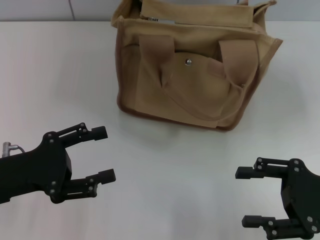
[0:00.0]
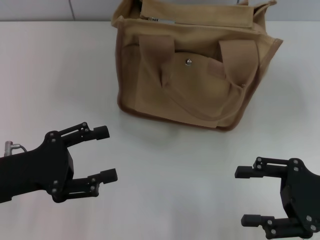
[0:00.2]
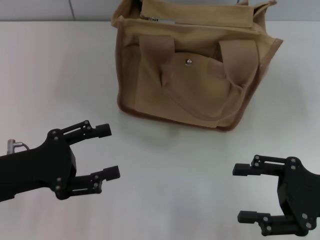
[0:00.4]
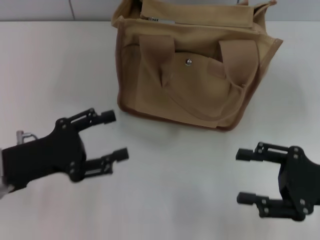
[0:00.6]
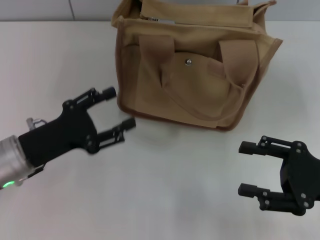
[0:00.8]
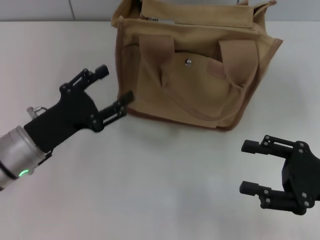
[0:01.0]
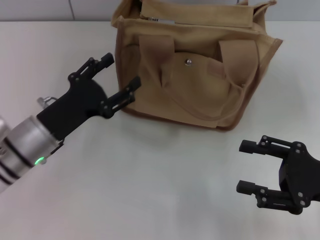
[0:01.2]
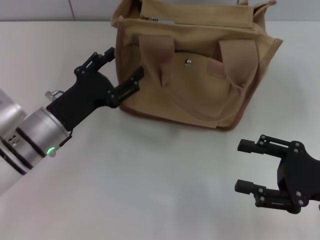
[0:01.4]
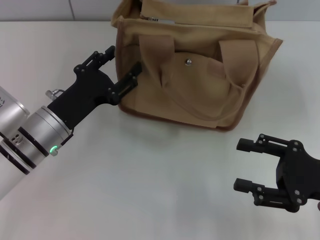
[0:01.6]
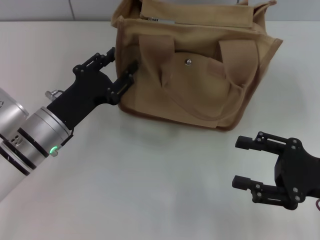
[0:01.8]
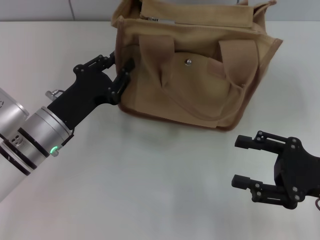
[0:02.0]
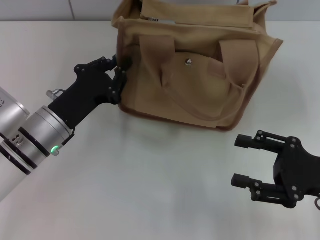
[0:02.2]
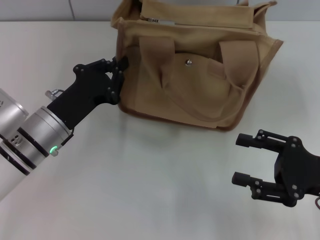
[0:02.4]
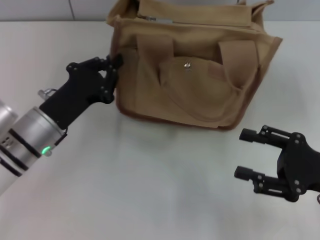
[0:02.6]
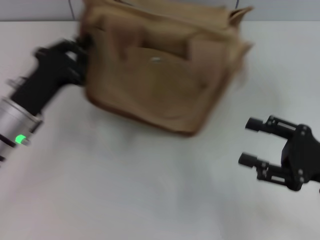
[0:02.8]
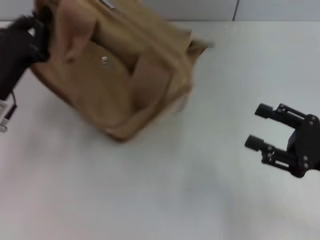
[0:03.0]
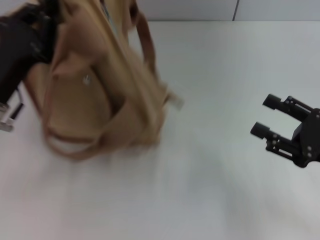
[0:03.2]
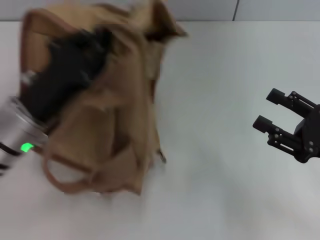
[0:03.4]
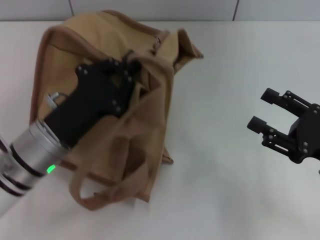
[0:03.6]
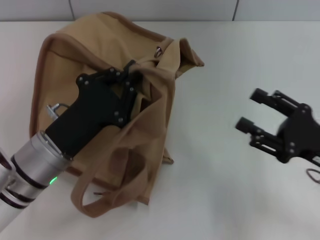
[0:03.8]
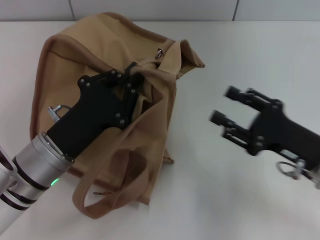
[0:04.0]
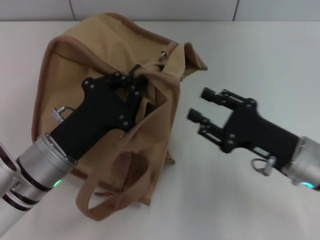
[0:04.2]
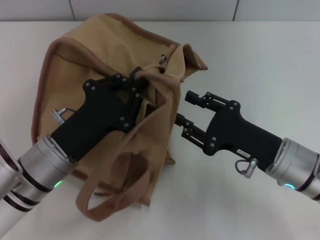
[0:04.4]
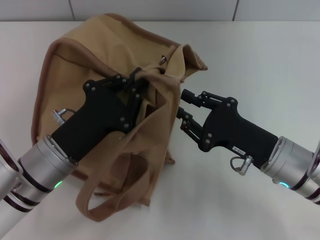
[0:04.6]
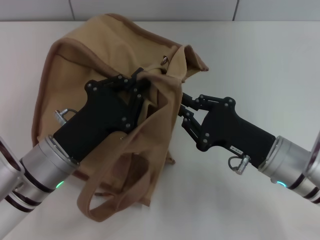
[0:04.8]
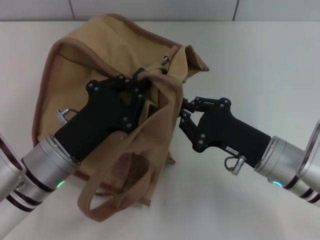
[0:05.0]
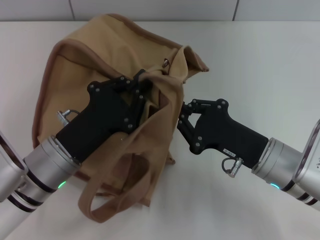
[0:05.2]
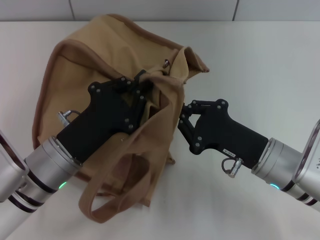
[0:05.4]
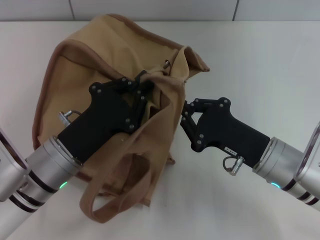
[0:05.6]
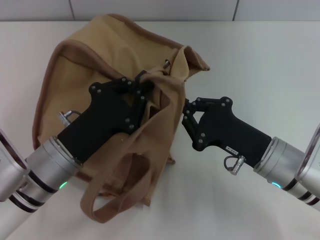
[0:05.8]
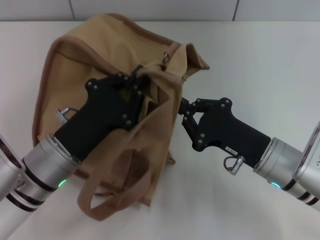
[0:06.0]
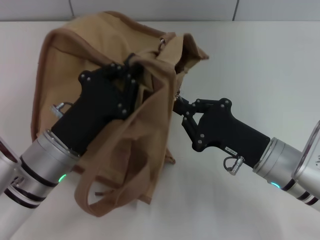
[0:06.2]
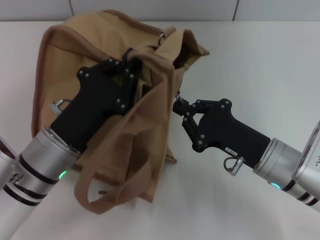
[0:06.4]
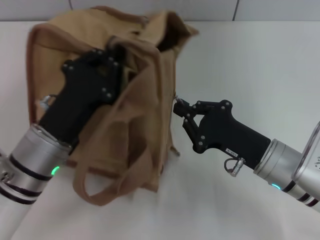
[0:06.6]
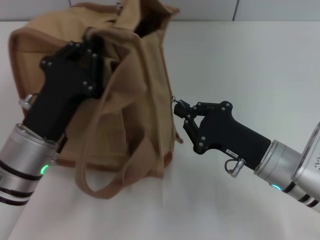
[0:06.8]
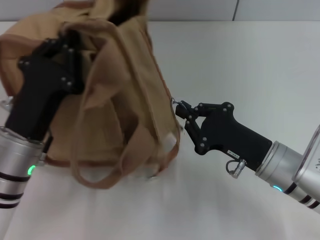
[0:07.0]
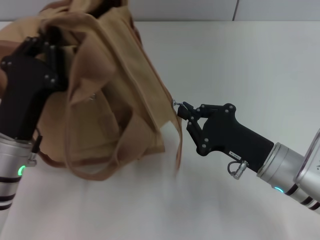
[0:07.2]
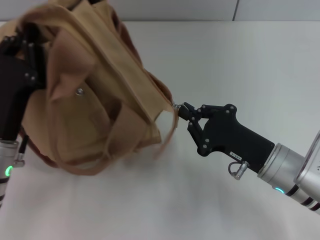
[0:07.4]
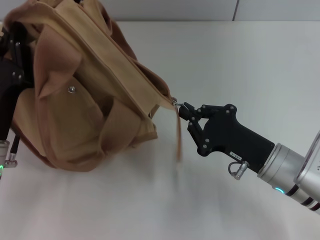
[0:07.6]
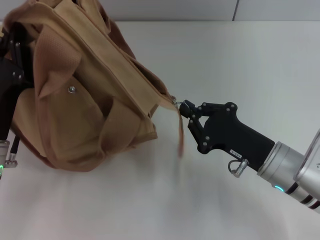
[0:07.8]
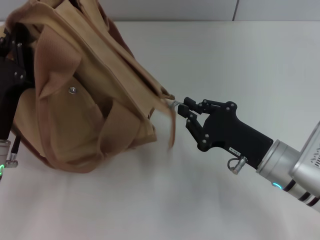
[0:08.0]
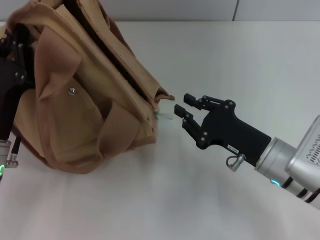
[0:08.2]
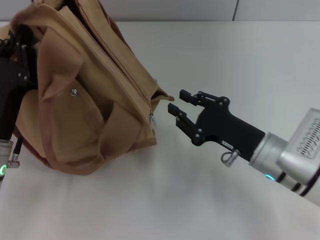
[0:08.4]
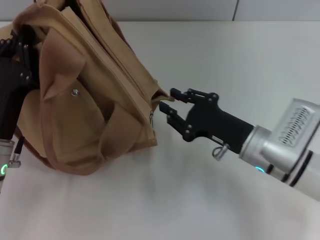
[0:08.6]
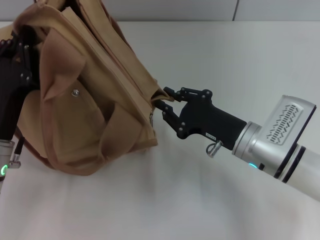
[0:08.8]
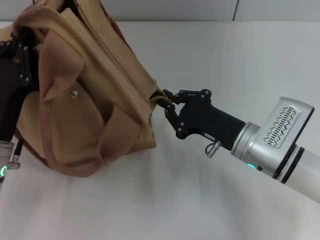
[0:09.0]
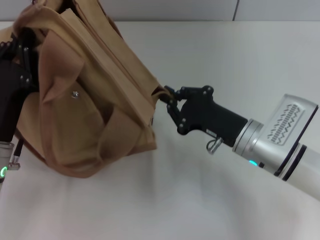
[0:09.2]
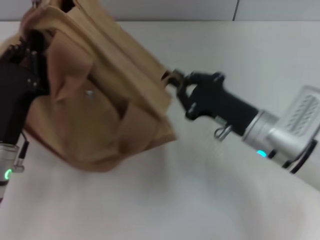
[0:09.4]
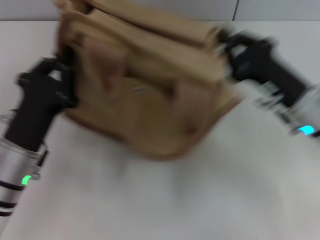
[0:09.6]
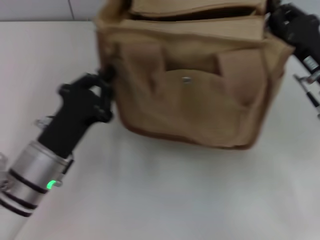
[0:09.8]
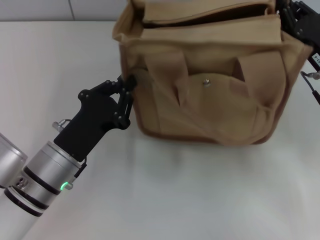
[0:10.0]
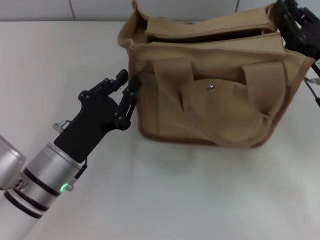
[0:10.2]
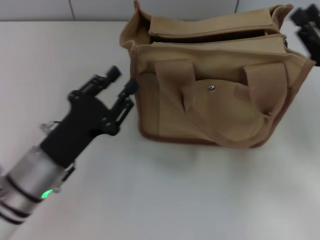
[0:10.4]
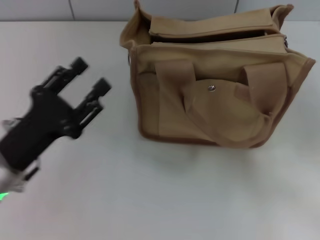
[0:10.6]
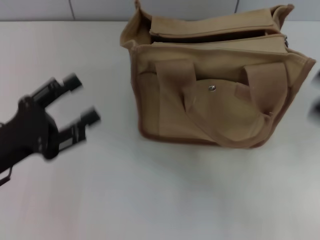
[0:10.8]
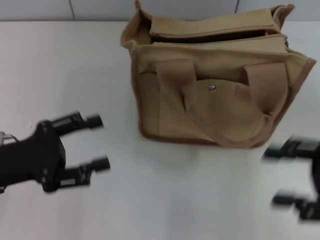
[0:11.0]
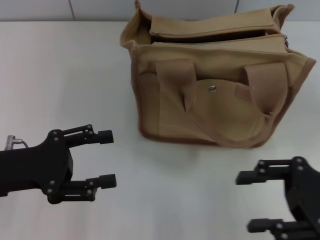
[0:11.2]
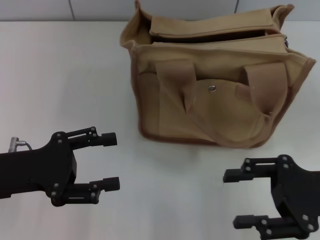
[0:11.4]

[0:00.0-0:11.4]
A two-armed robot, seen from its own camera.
Step, 0:00.0 to 0:08.0: Pull open the zipper with your right hand.
Step, 0:08.4 to 0:10.2: Grab the bag with your left hand.
0:00.0 to 0:01.4: The left gripper moves to the right and forward, approximately 10 cm.
0:01.4 to 0:02.8: The left gripper closes.
0:02.8 to 0:04.2: The left gripper goes some 5 cm to the right and backward, while the right gripper is displaced to the left by approximately 5 cm.
0:04.2 to 0:05.6: The right gripper closes.
0:07.2 to 0:08.6: The right gripper opens up.
0:08.6 to 0:10.0: The right gripper heads to the right and upward, covering approximately 10 cm. Meanwhile the left gripper heads to the right, covering roughly 5 cm.
0:10.0 to 0:11.4: The right gripper heads backward, covering approximately 10 cm, and opens up; the left gripper shifts some 10 cm to the left and upward, and opens up.

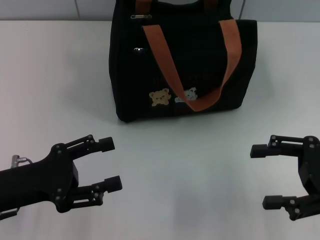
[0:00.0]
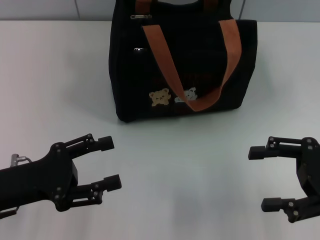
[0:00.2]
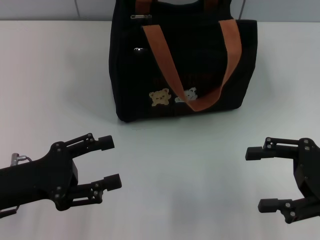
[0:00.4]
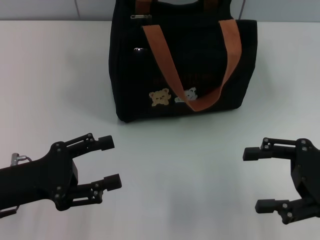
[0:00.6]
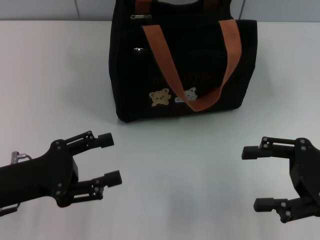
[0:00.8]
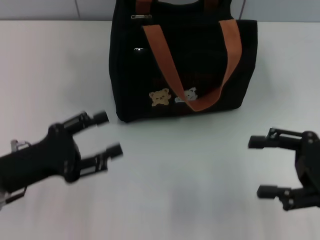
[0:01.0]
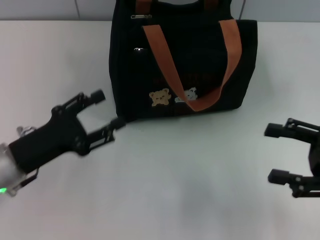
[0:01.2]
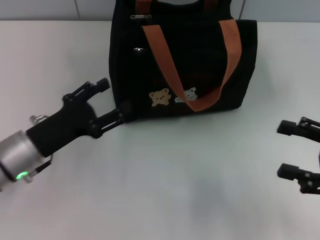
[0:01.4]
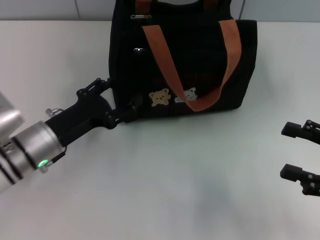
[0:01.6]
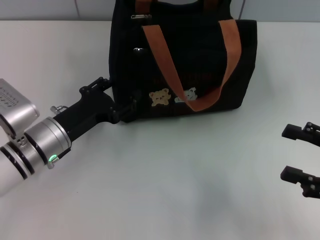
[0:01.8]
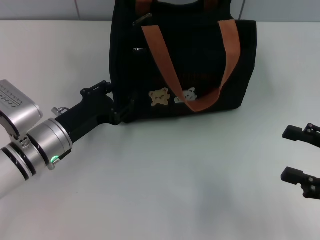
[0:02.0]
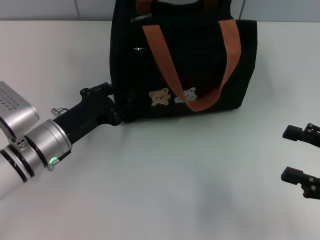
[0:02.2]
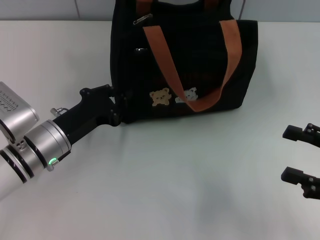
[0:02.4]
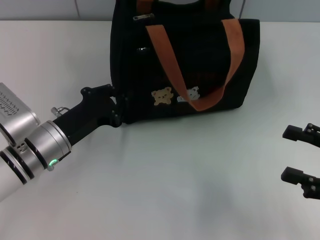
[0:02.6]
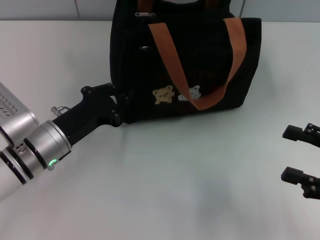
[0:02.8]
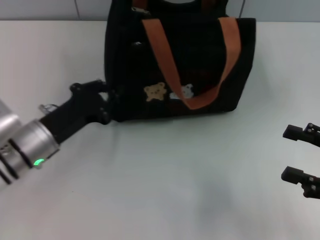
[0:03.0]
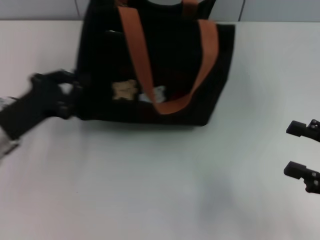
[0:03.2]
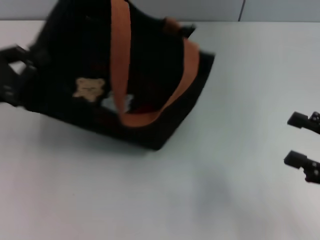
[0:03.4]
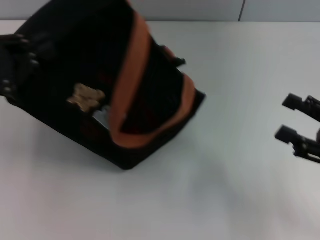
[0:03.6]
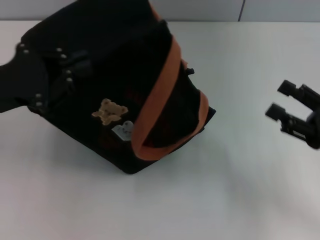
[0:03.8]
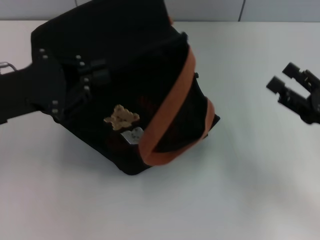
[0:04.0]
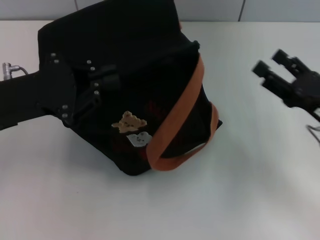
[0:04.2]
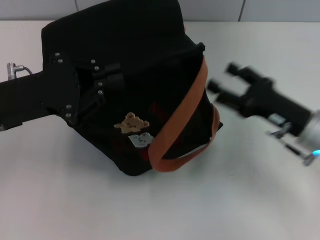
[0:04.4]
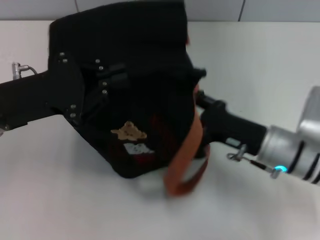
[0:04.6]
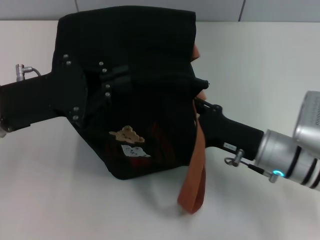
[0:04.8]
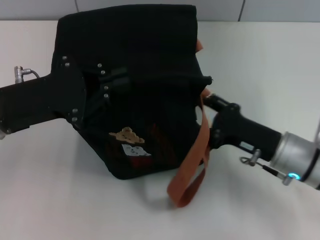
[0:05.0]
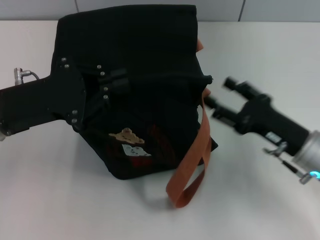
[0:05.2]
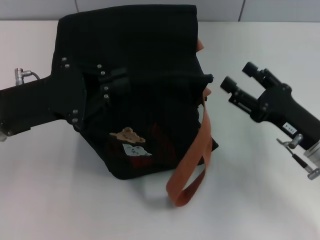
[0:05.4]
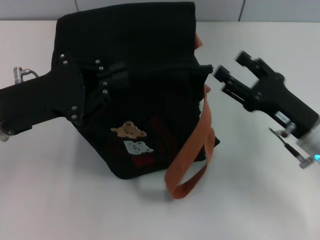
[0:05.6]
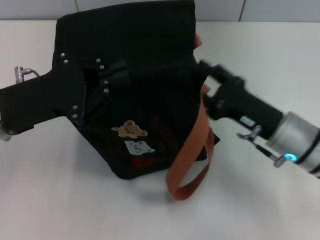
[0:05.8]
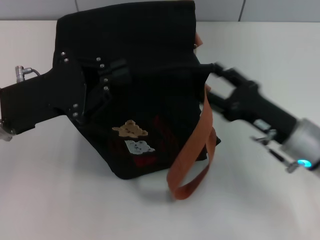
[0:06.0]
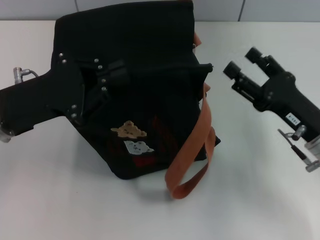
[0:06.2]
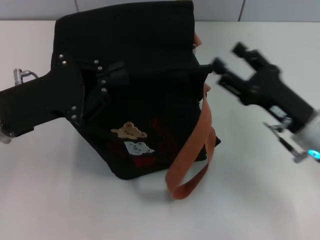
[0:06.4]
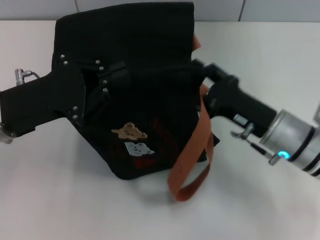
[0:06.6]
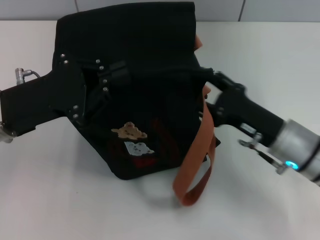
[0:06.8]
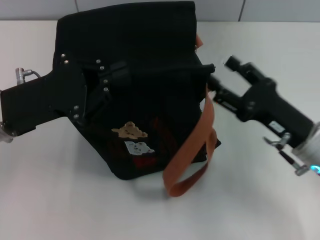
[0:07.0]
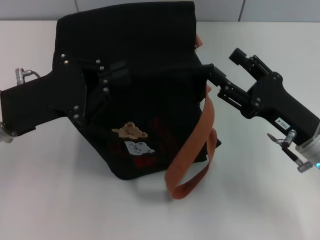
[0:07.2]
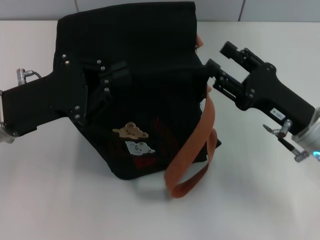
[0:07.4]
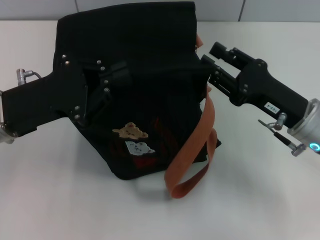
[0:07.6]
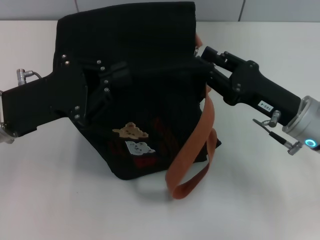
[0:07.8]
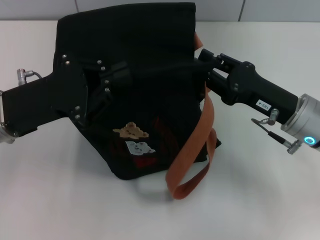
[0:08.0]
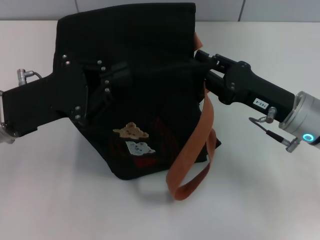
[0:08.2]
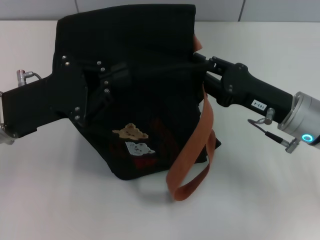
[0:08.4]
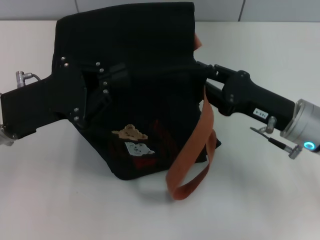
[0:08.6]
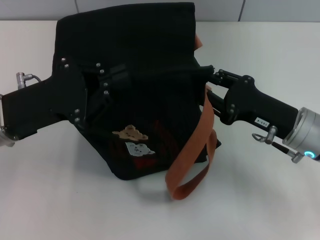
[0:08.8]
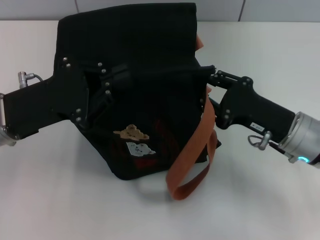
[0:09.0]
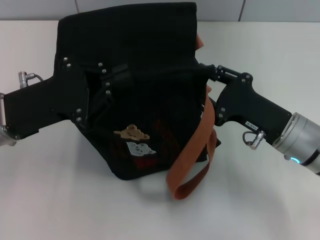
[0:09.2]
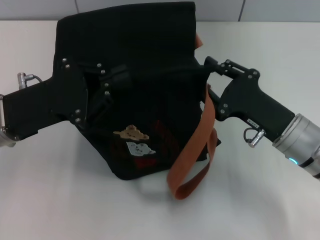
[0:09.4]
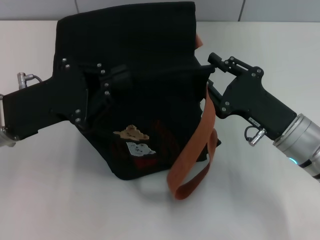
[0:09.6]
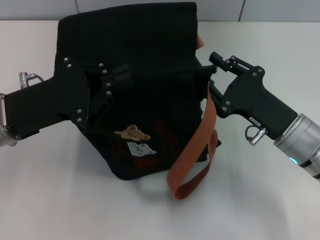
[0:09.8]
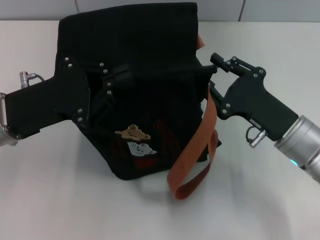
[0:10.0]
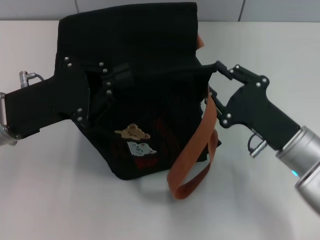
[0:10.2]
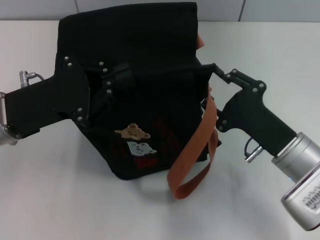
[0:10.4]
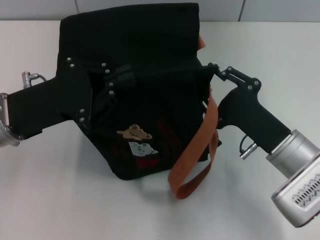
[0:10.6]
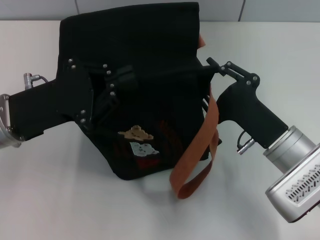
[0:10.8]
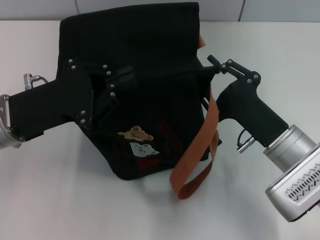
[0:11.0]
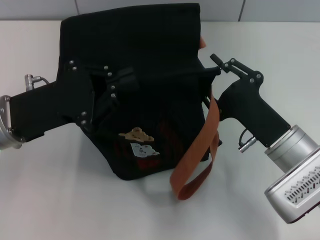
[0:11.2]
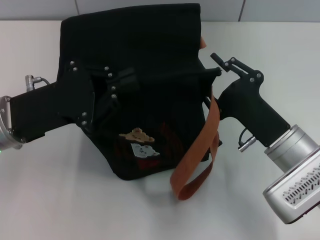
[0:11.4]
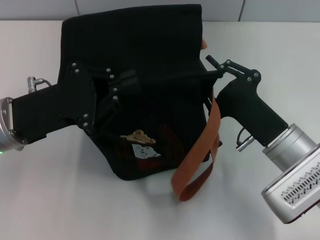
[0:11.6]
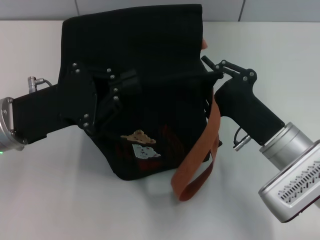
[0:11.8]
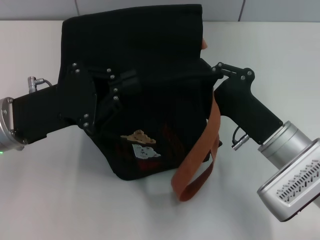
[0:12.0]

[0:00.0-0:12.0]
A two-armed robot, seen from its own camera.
0:00.0 to 0:01.6: The left gripper goes roughly 10 cm forward and to the right.
0:01.6 to 0:03.0: The left gripper closes up.
0:03.0 to 0:04.4: The right gripper moves to the left and forward, about 15 cm. The left gripper moves upward, roughly 10 cm.
0:04.4 to 0:06.0: The right gripper goes left and right, roughly 5 cm each way, reversing 2 times.
0:06.0 to 0:09.0: The grippers move only a little.
0:10.4 to 0:12.0: The grippers stay close to where they were, moving slightly.
